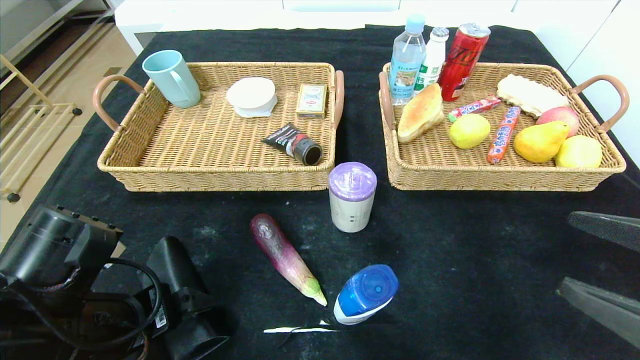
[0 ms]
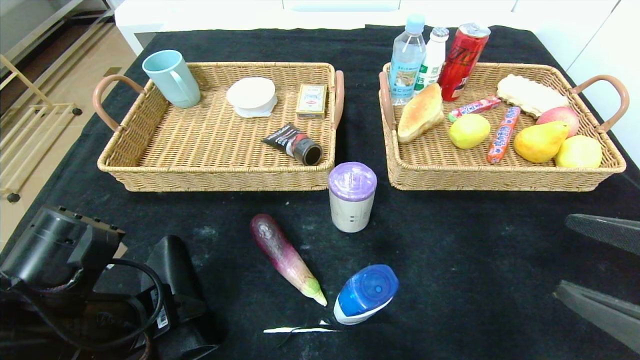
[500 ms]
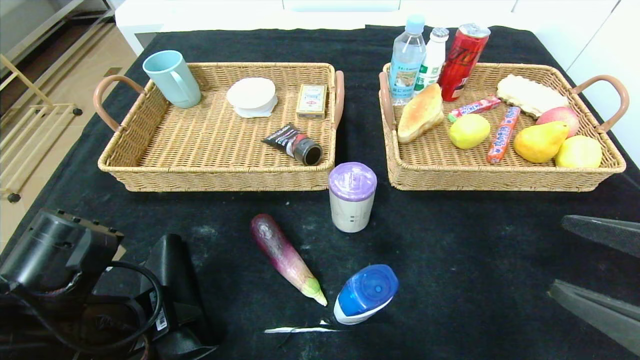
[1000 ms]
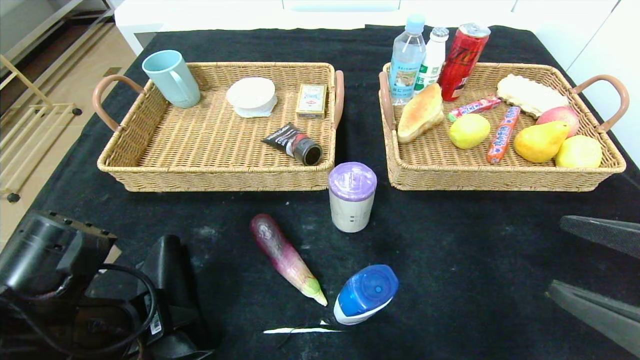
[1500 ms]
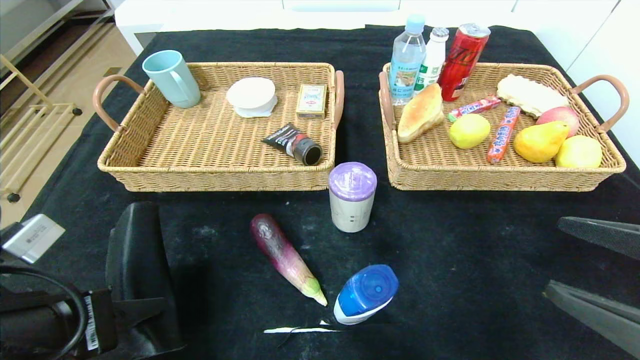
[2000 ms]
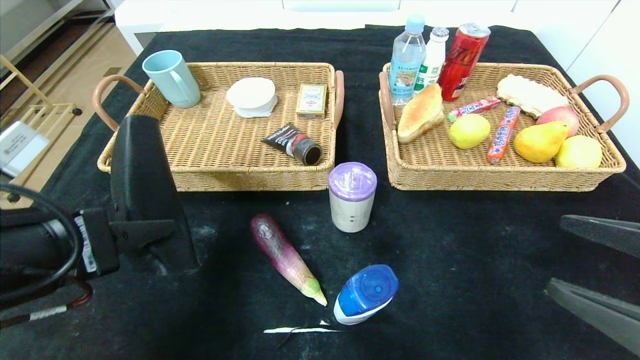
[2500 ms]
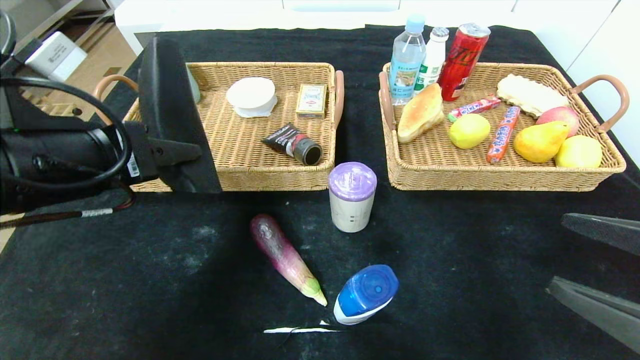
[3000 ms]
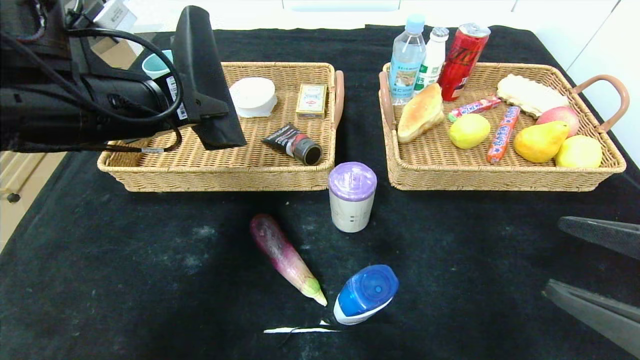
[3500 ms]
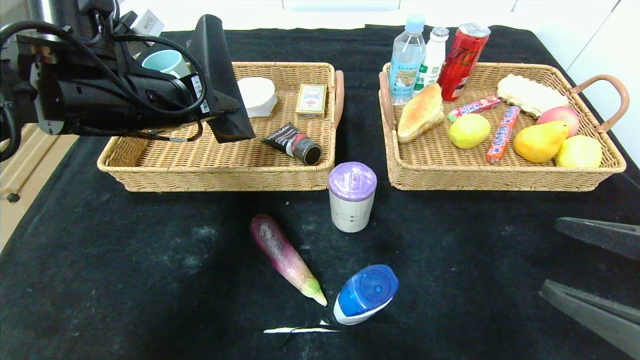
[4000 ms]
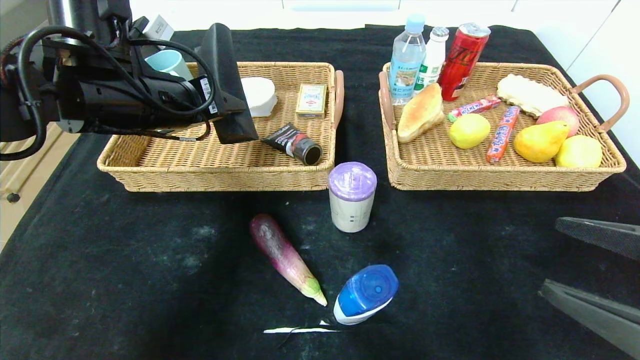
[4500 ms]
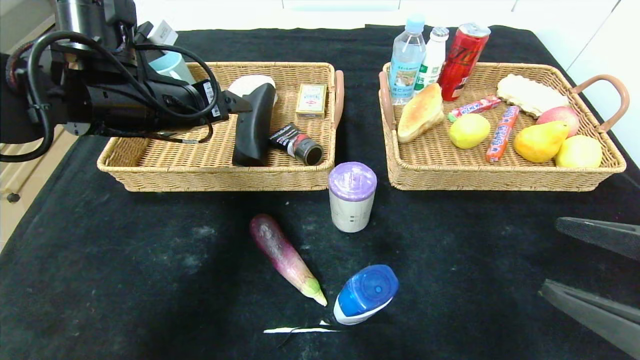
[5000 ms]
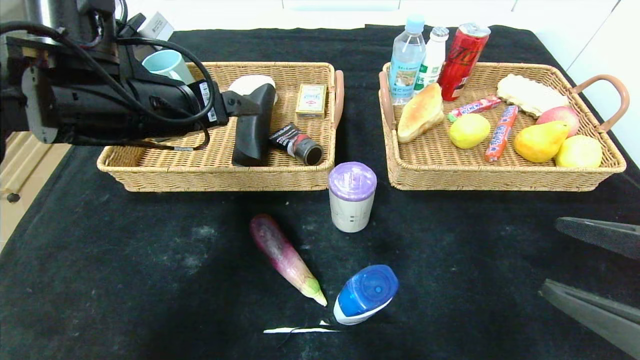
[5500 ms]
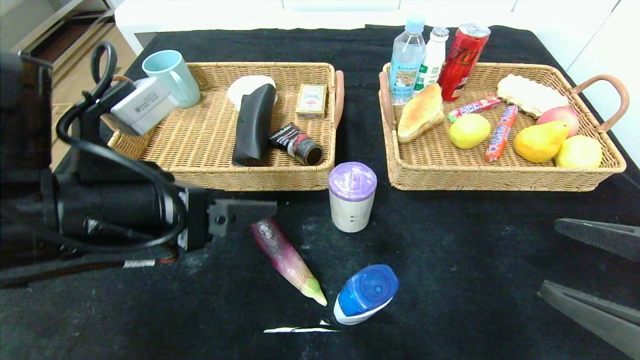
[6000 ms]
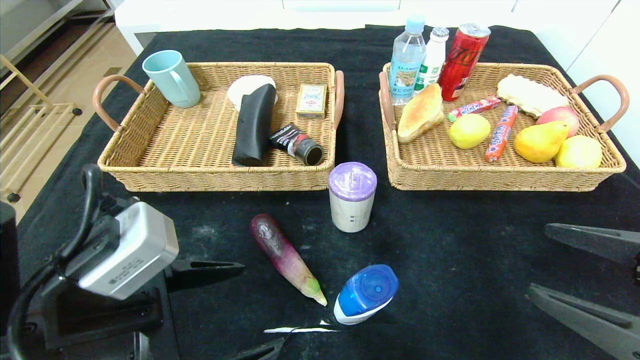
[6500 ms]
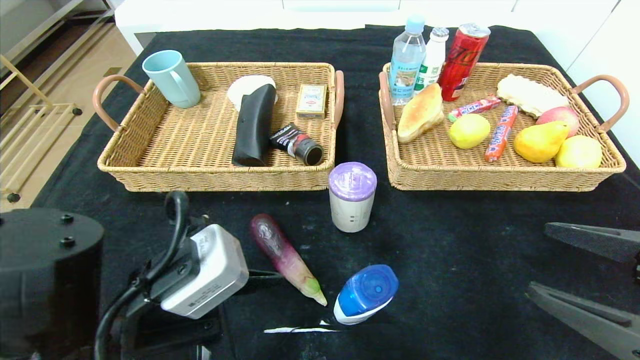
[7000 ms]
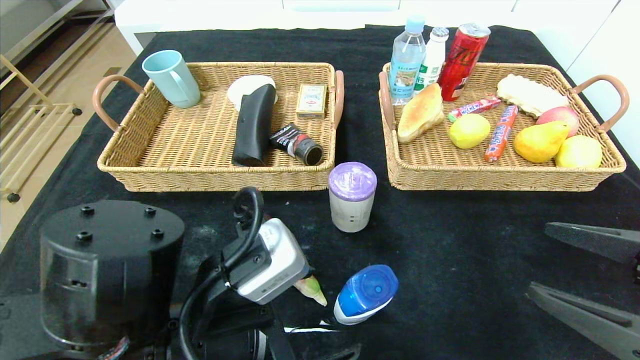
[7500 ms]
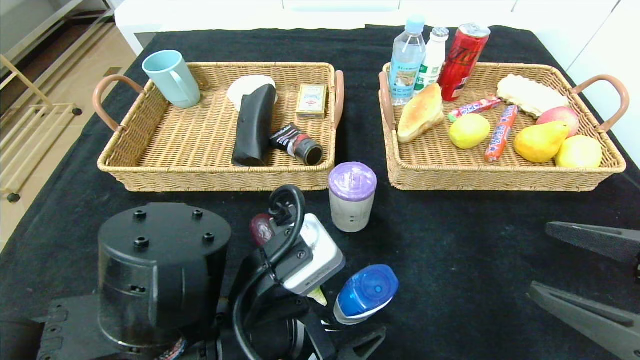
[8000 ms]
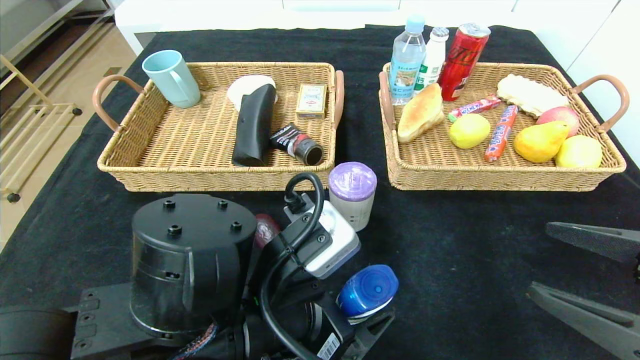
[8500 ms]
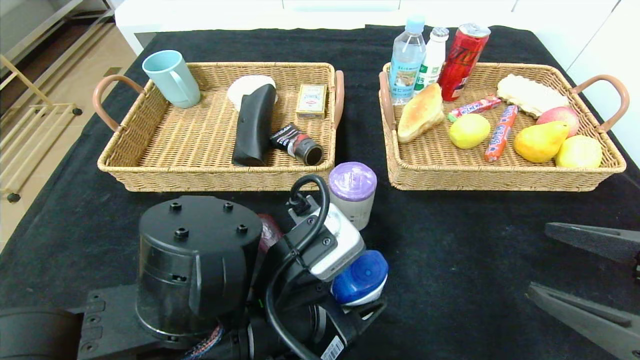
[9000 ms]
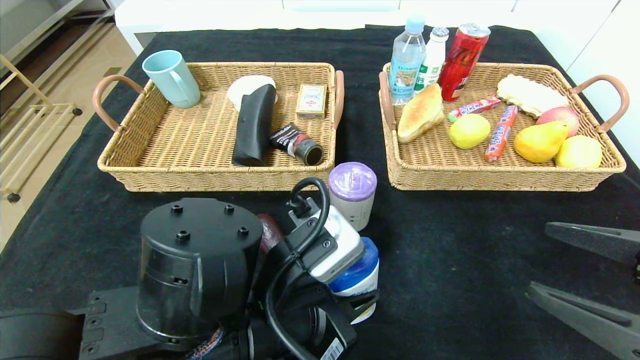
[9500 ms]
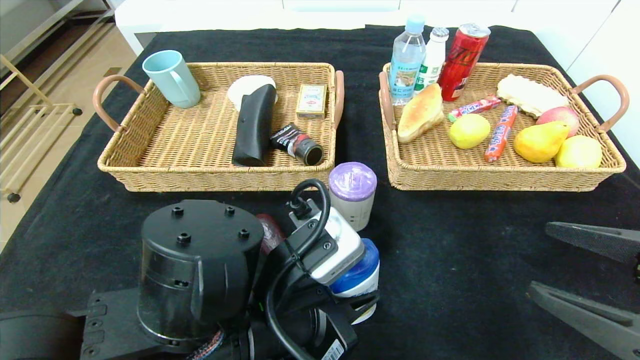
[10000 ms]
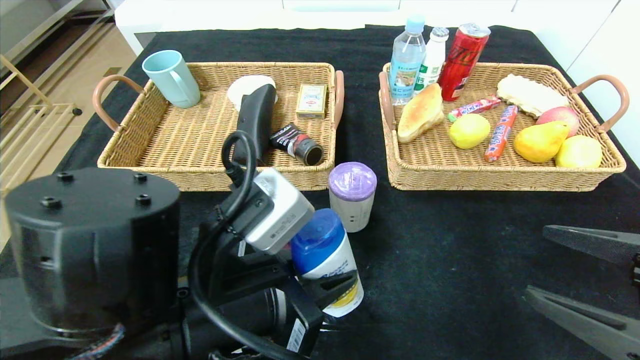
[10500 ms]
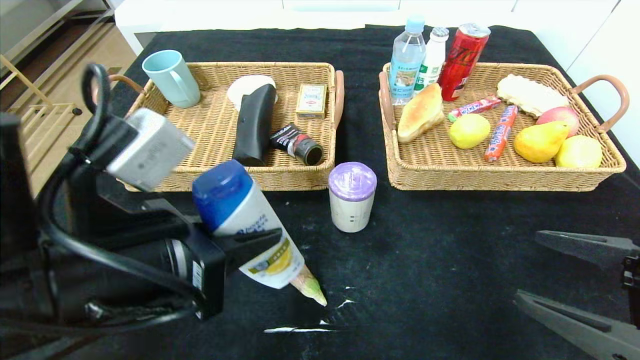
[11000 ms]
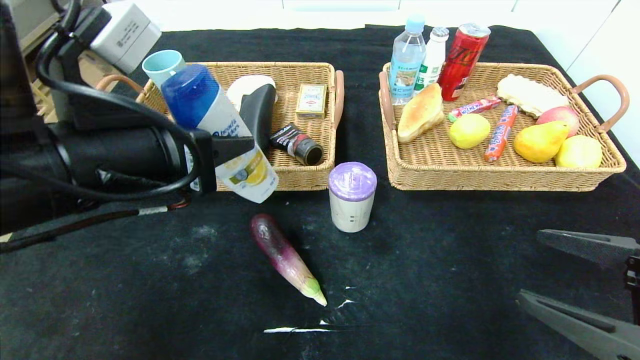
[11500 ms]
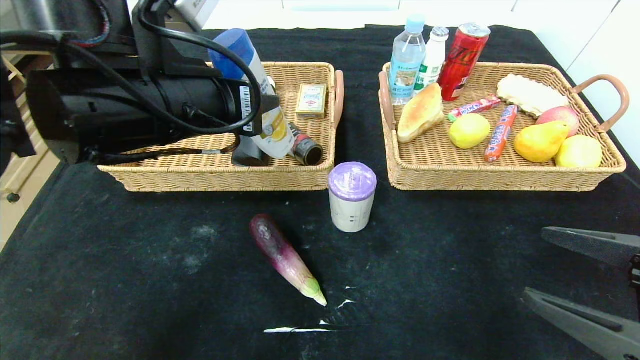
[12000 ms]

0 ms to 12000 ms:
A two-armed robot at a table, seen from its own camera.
Step, 0 ms to 6000 ms: Pick up the glasses case and put it in the left basket.
0 ms to 2000 ms: The left gripper shifts by some 5 cm, and closes its fingers.
2000 ms to 4000 ms: The left gripper travels forward and upward by approximately 20 cm.
4000 ms to 6000 ms: The left gripper travels backward by about 10 cm, and opens its fingers.
6000 ms to 8000 ms: The left gripper moves to the right and downward, roughly 15 cm.
8000 ms to 10000 ms: The left gripper closes up.
10000 ms to 12000 ms: The left gripper goes roughly 20 cm upward, forward and to the left.

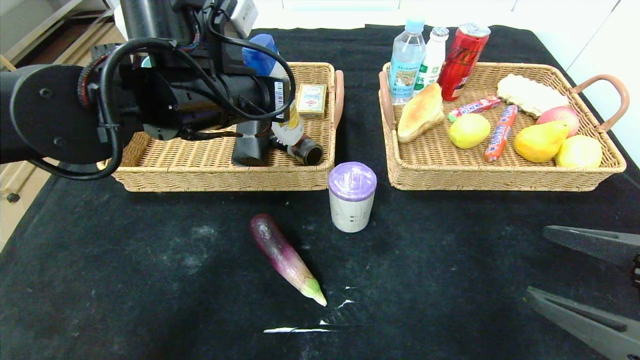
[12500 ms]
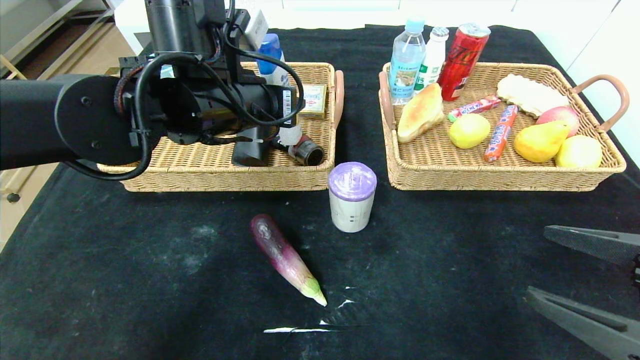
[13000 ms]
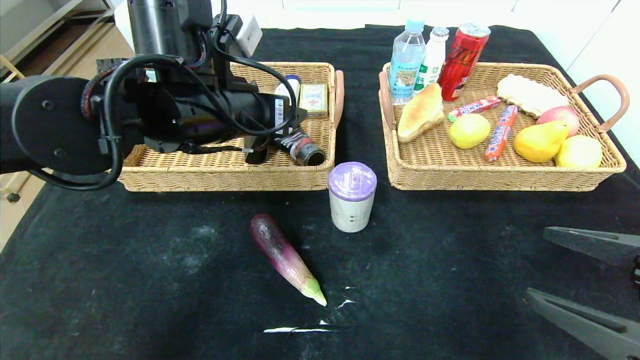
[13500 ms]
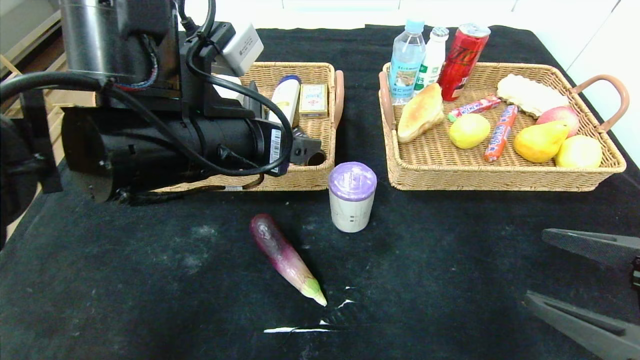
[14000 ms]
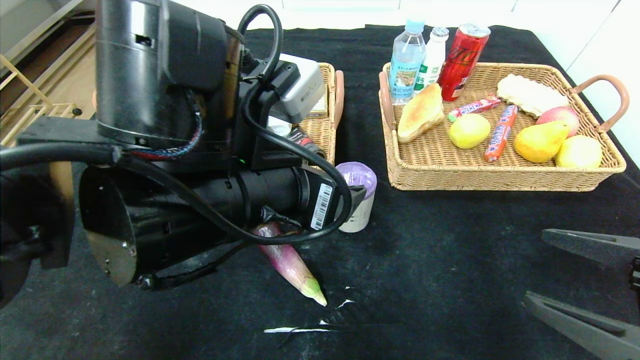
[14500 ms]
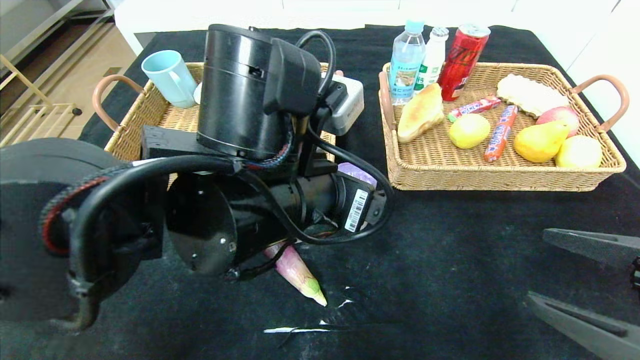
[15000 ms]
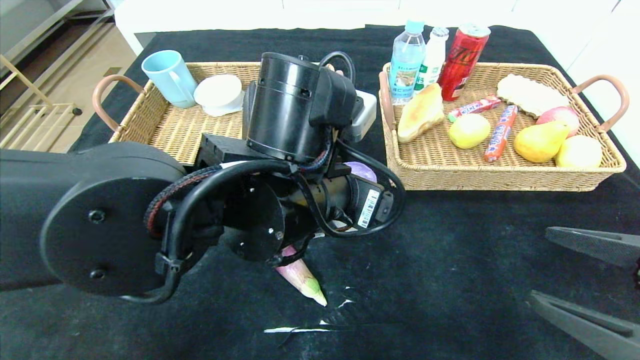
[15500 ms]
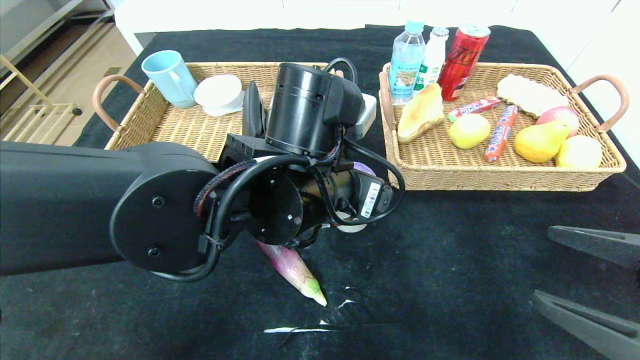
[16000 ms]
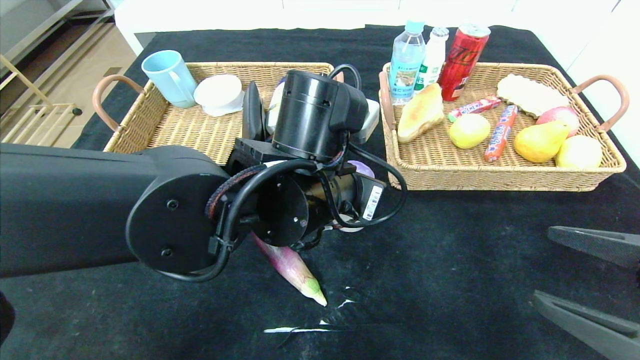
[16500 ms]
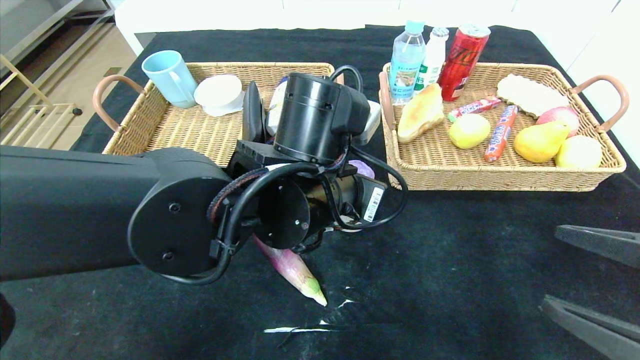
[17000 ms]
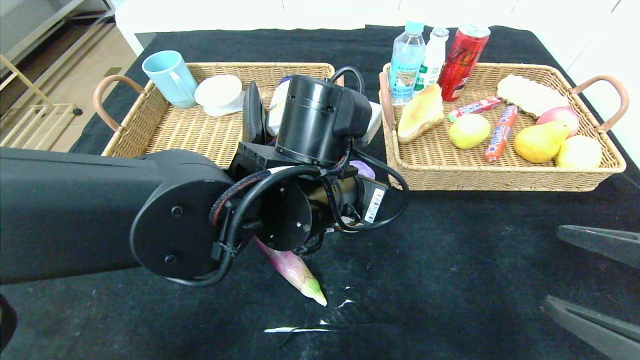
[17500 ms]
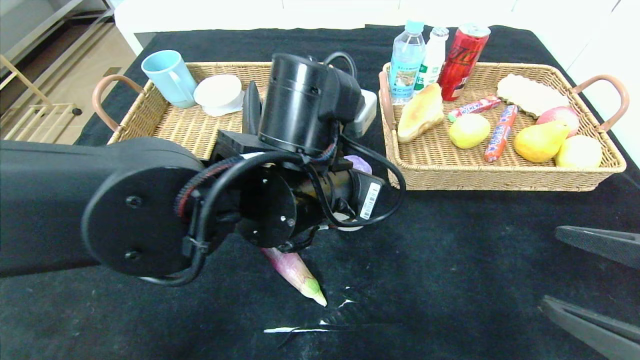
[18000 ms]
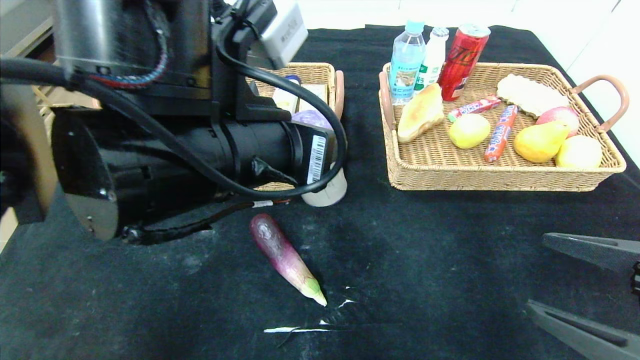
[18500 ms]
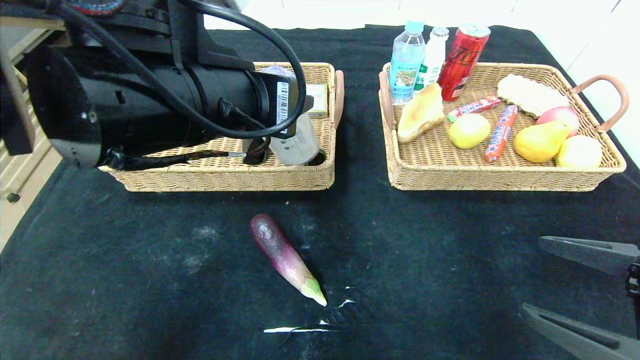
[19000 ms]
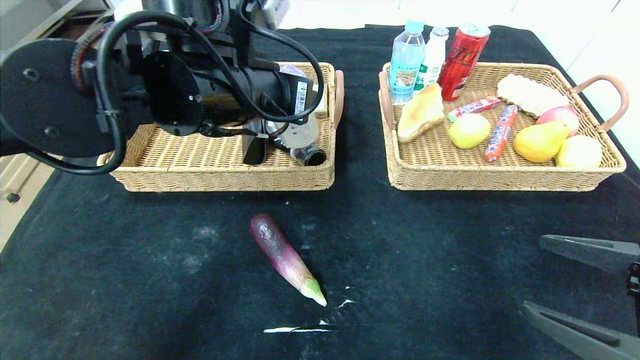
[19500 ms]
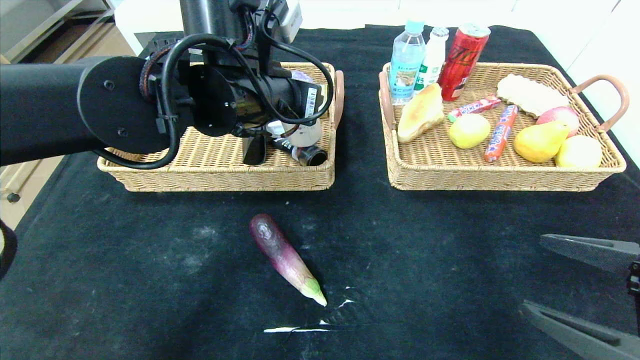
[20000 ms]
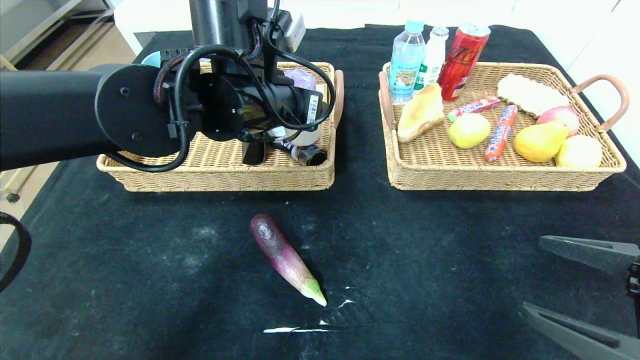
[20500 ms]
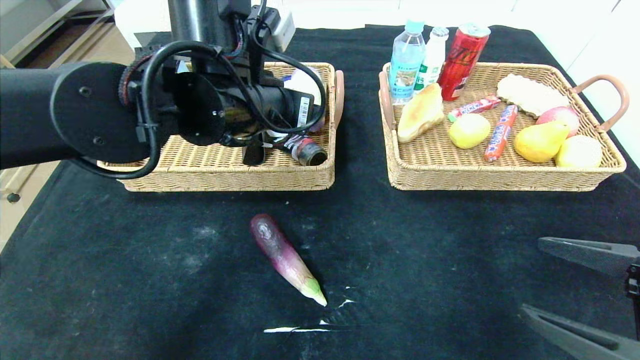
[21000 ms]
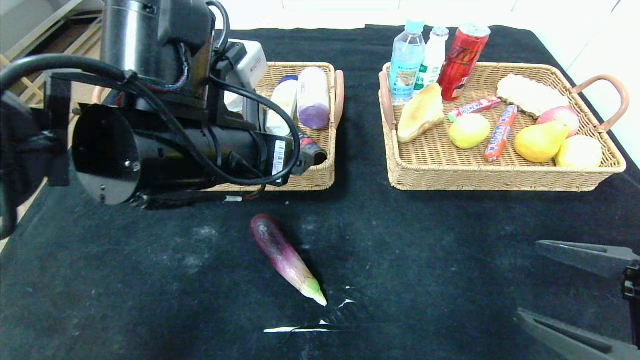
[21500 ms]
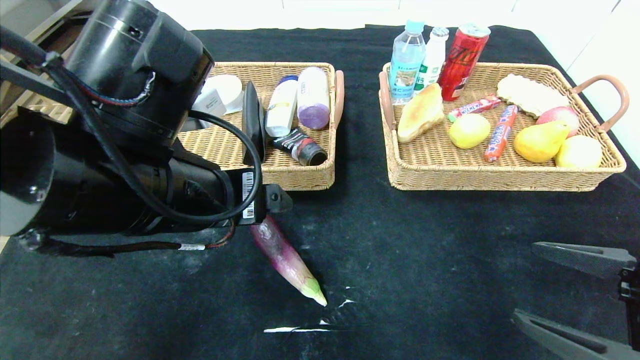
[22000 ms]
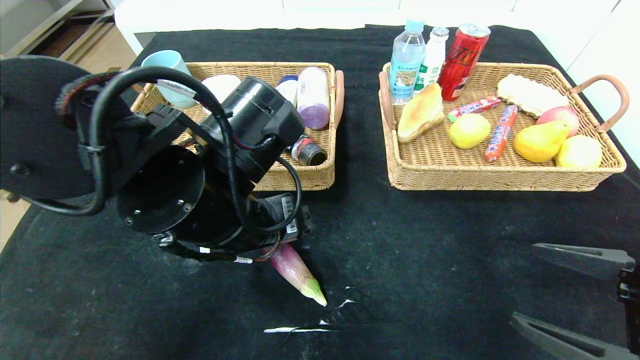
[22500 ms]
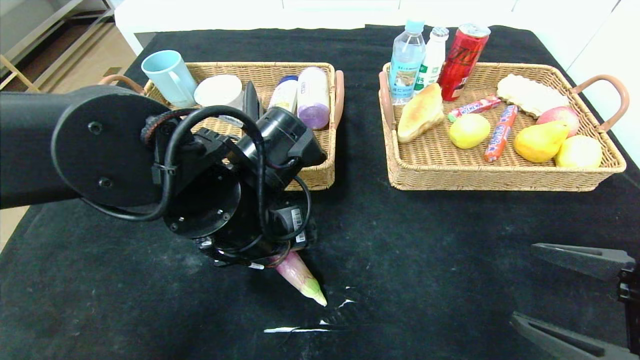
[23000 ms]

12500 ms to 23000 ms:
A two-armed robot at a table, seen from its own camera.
Step, 12500 ms to 14500 ms: Pick up the shampoo and put it in the left basket.
Step, 15000 ms to 21500 ms: Pick up the purple garbage bag and put it in the left basket.
12500 ms to 14500 ms: The left gripper heads backward, covering approximately 10 cm, and opens its fingers.
14500 ms to 16500 ms: The left gripper shifts roughly 10 cm forward and to the right, and closes.
16500 ms to 19000 ms: The left gripper goes about 10 cm upward and to the left.
19000 ms to 21000 ms: The left gripper shifts some 10 cm forward, and opens.
21000 ms to 23000 ms: The left gripper travels downward and backward by approximately 10 cm.
